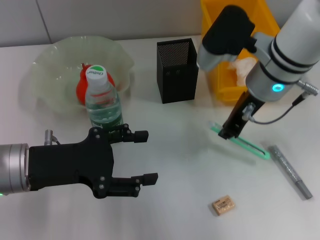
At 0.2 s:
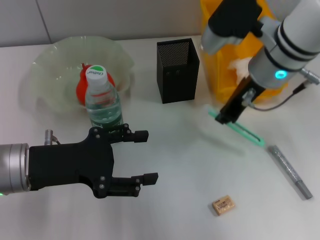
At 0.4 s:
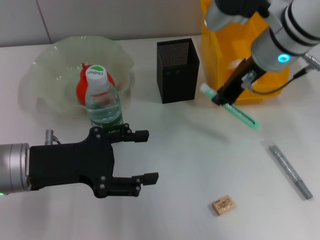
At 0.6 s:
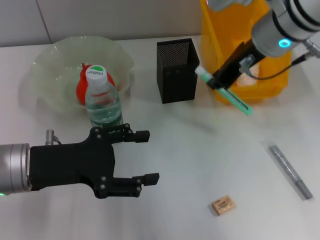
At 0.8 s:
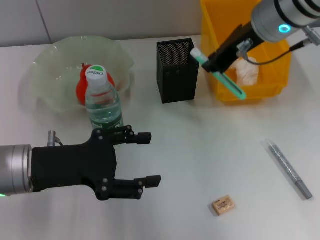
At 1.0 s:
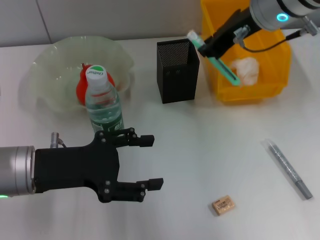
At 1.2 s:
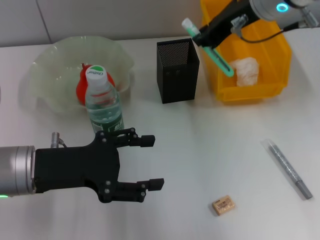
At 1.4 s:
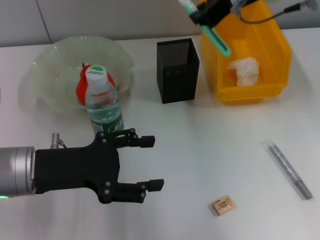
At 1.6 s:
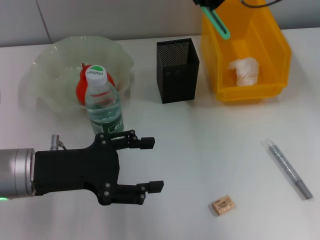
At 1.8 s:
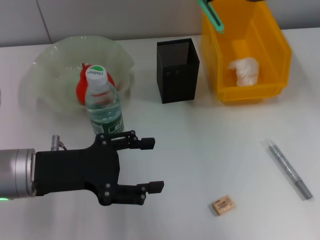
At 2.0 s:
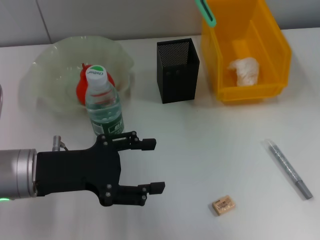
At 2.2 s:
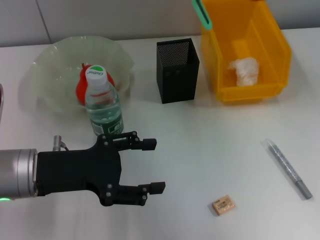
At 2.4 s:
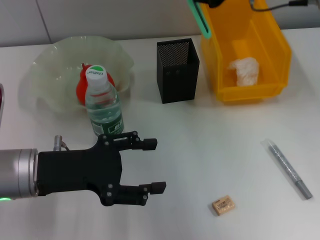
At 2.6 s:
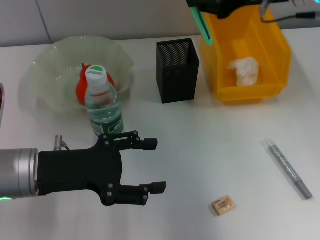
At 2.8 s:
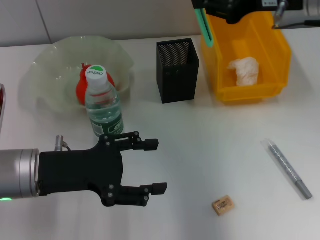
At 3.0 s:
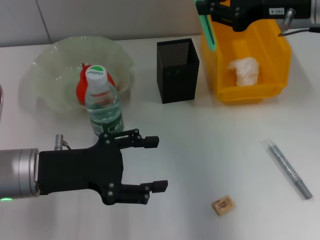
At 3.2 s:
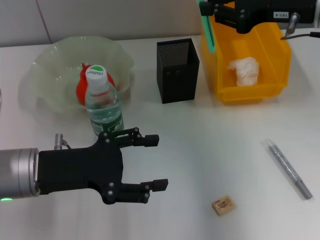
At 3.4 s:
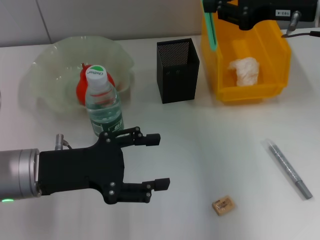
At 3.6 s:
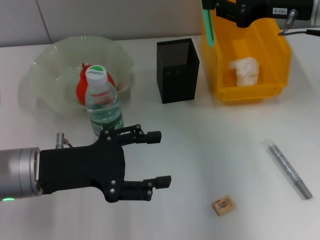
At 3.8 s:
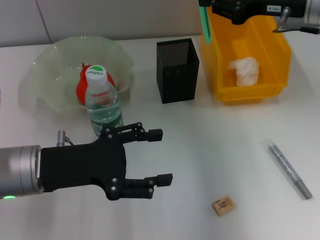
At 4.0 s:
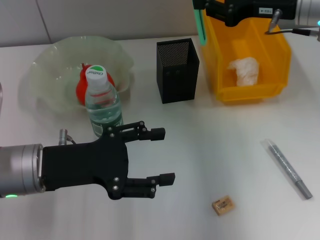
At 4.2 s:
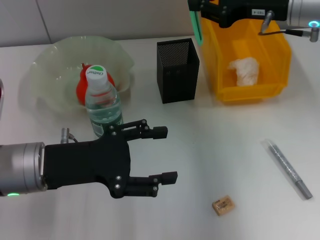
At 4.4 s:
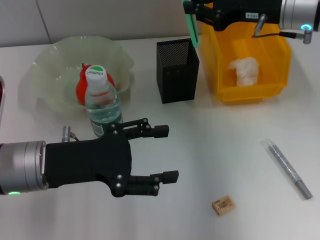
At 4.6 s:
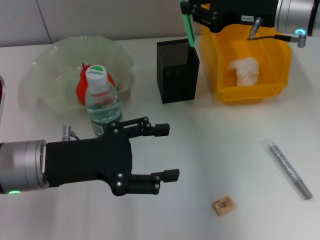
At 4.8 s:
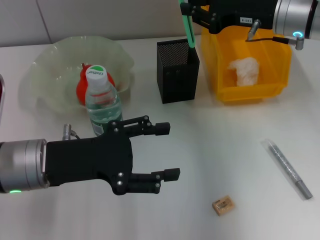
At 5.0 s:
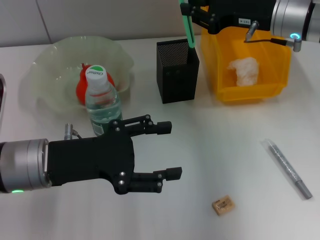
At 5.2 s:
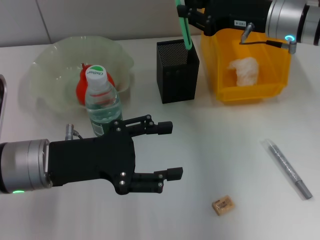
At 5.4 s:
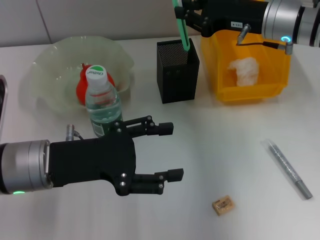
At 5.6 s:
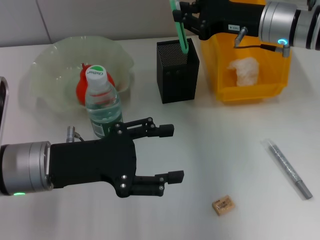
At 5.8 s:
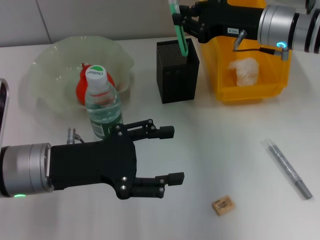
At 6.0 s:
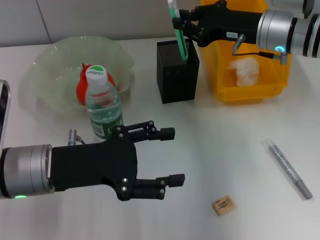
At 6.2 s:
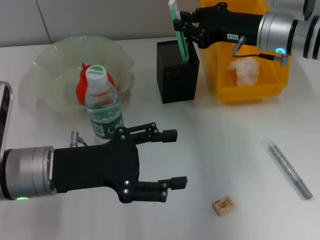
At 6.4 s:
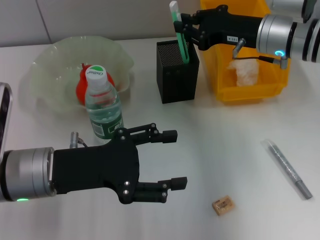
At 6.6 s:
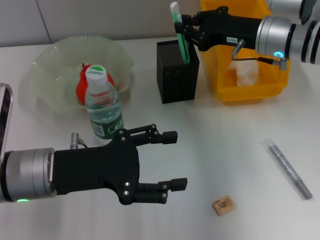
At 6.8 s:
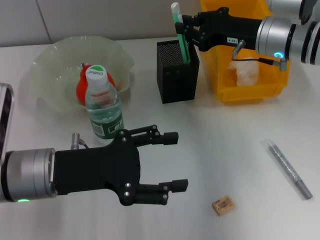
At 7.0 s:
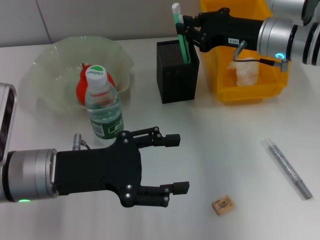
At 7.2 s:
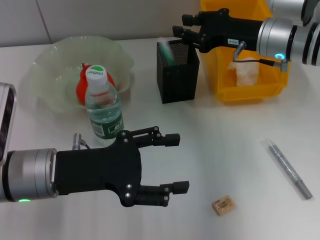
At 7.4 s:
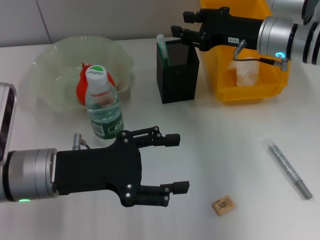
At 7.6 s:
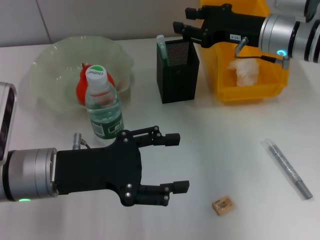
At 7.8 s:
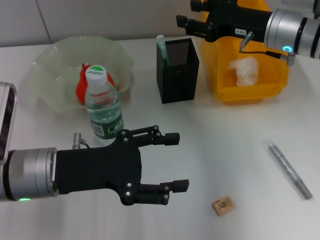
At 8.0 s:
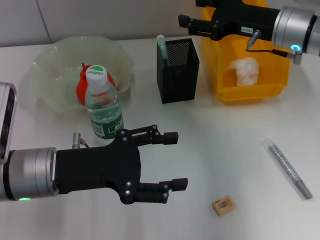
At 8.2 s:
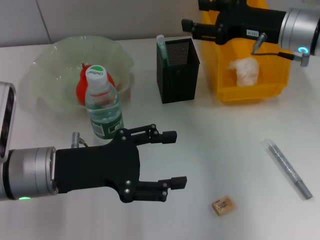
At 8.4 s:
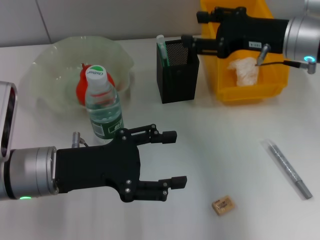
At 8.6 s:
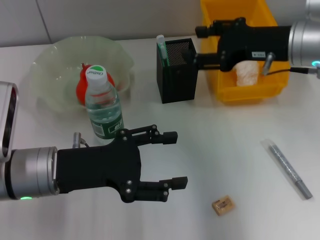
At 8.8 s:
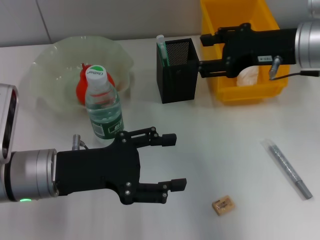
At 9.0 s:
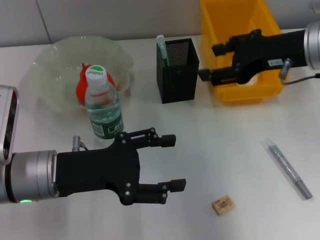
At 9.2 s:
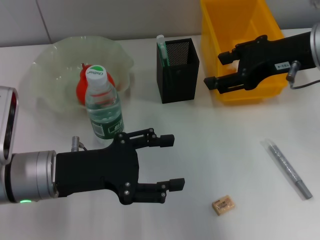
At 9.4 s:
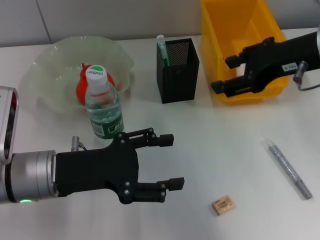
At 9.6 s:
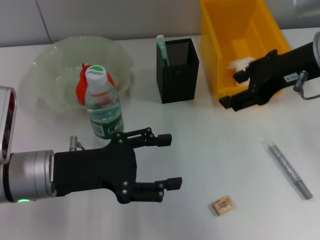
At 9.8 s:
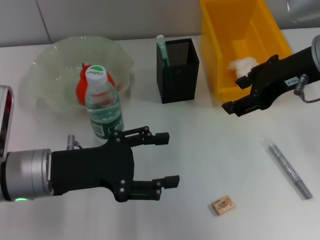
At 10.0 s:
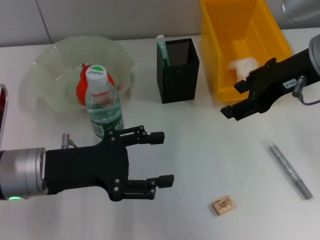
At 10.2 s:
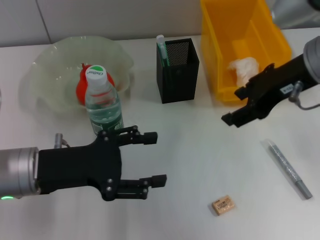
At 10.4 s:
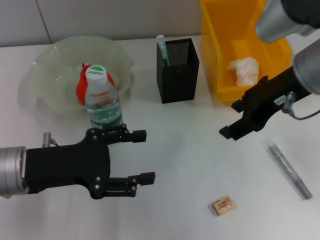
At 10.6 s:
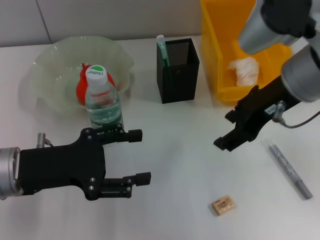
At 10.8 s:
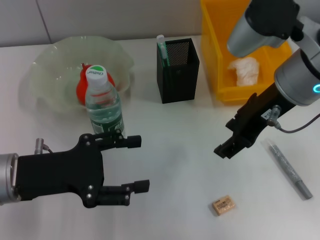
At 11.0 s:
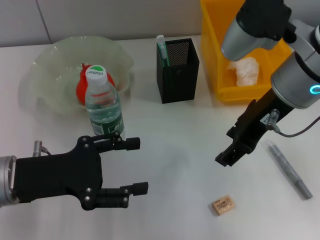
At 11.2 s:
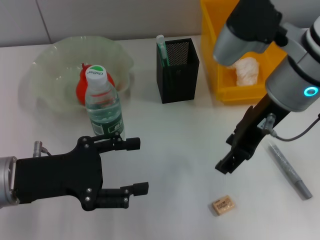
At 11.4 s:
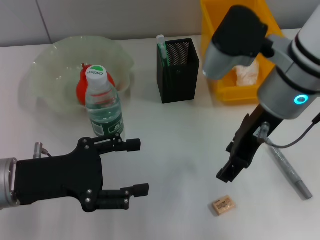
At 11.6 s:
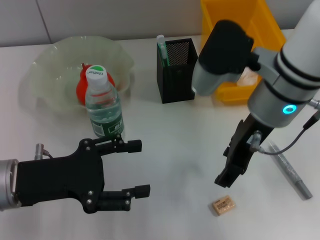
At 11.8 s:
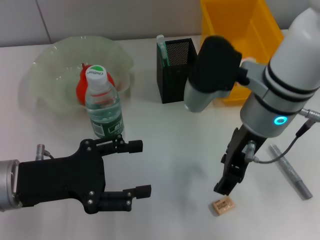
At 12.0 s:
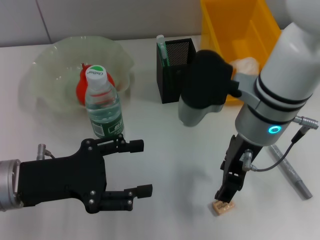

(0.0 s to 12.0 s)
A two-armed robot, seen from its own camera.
Step, 0.0 s - 7.2 s: Place the blue utility knife into the pen holder with the right hand.
0.0 s - 1.6 s: The right gripper moves upward, about 10 cm.
1.6 s - 3.0 s: The right gripper travels to the right and downward by roughly 10 cm.
3.0 s - 4.4 s: The right gripper moves roughly 5 cm.
4.4 s - 6.0 s: The grippers move only a little.
6.0 s - 7.6 s: The right gripper opens up.
7.6 s - 9.0 s: The right gripper shifts about 10 cm backward and upward.
10.4 s - 12.0 s: The right gripper heads to the left and downward, covering some 10 cm.

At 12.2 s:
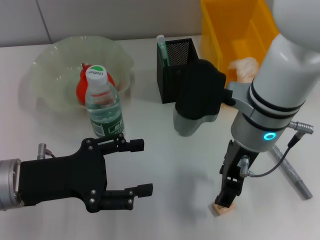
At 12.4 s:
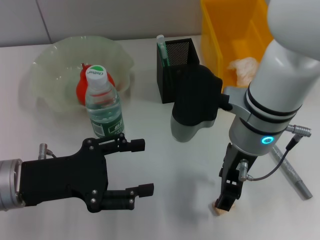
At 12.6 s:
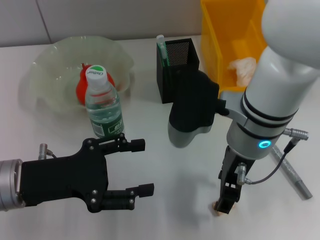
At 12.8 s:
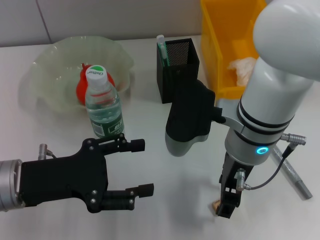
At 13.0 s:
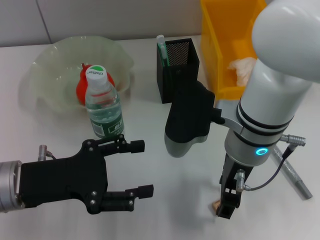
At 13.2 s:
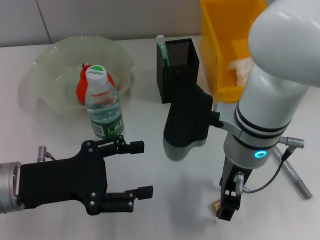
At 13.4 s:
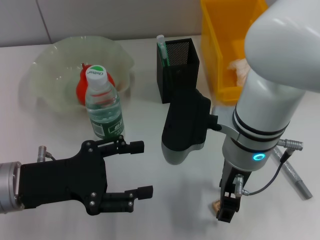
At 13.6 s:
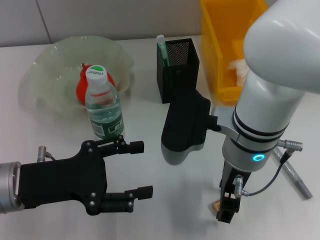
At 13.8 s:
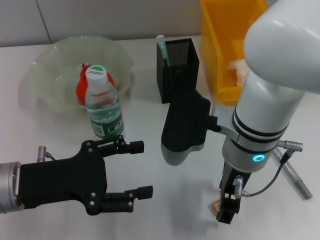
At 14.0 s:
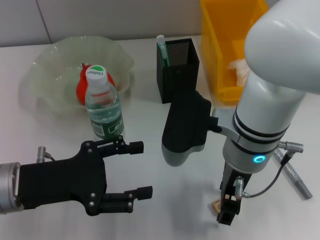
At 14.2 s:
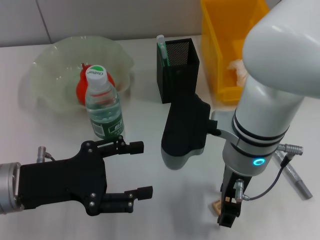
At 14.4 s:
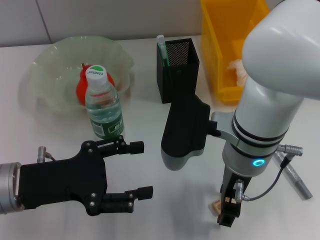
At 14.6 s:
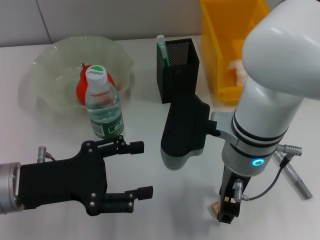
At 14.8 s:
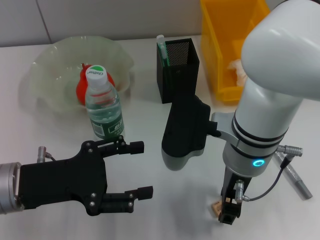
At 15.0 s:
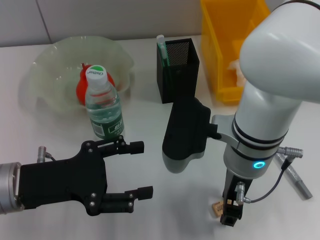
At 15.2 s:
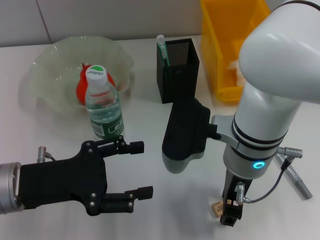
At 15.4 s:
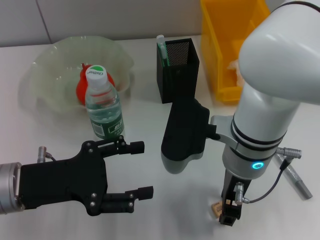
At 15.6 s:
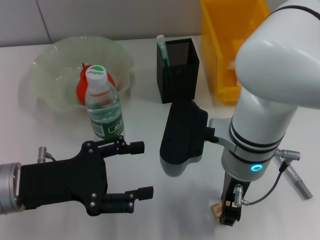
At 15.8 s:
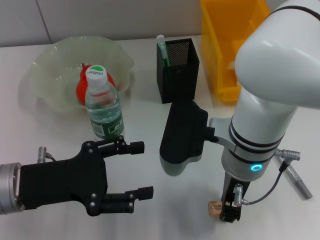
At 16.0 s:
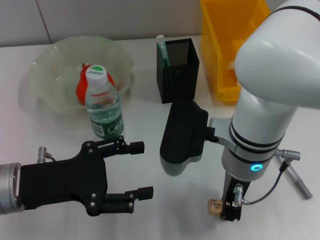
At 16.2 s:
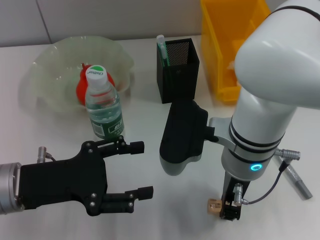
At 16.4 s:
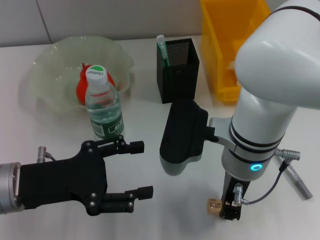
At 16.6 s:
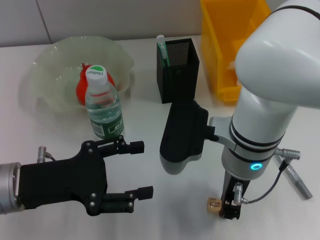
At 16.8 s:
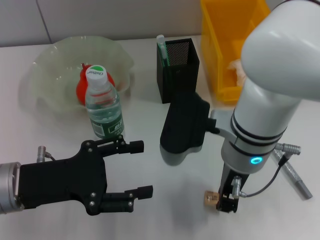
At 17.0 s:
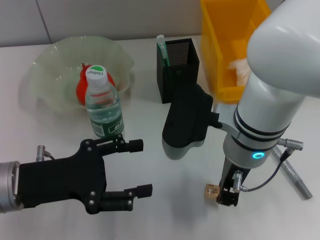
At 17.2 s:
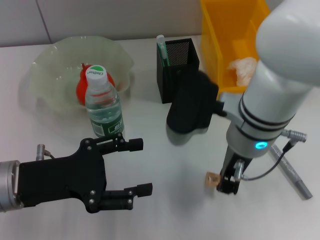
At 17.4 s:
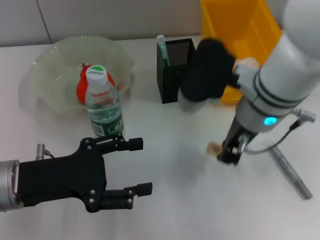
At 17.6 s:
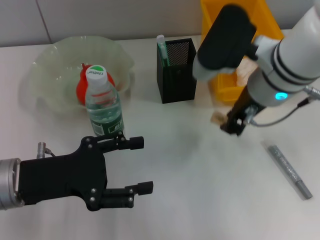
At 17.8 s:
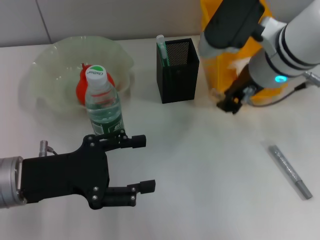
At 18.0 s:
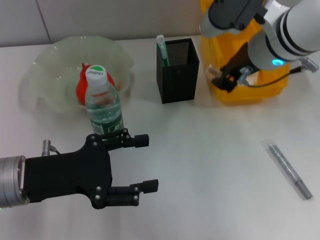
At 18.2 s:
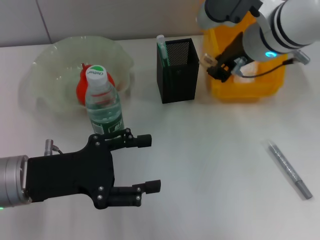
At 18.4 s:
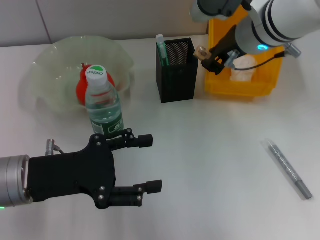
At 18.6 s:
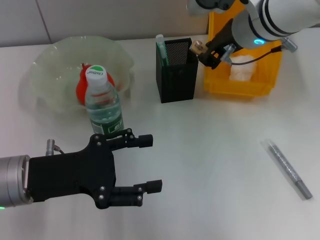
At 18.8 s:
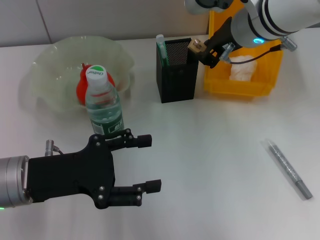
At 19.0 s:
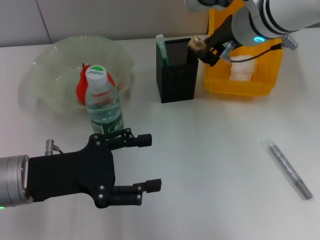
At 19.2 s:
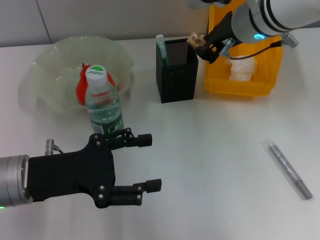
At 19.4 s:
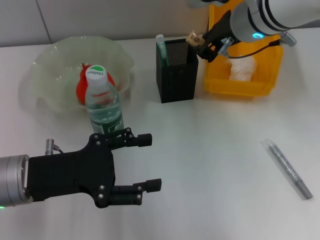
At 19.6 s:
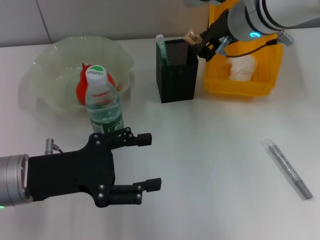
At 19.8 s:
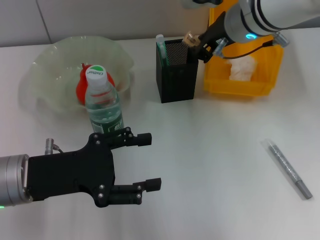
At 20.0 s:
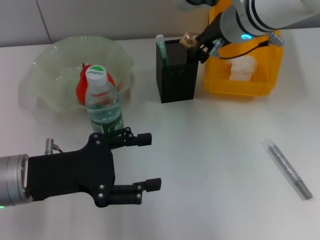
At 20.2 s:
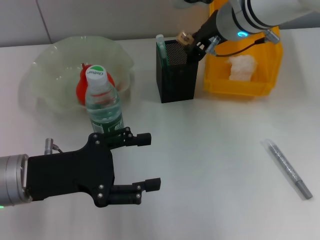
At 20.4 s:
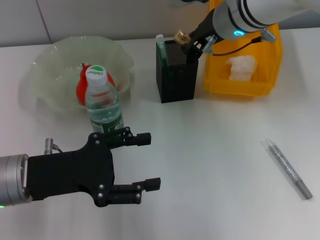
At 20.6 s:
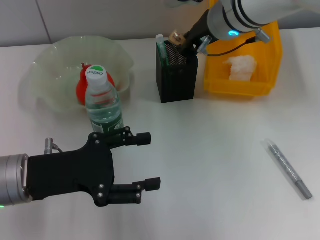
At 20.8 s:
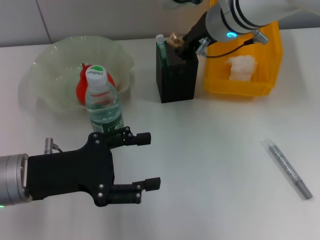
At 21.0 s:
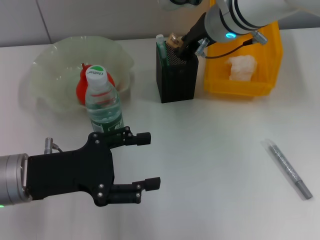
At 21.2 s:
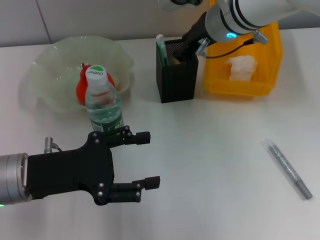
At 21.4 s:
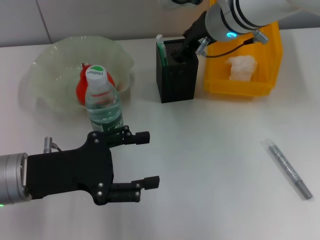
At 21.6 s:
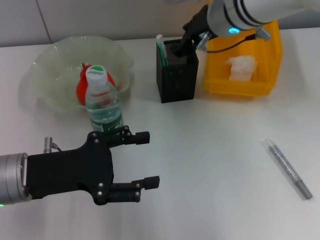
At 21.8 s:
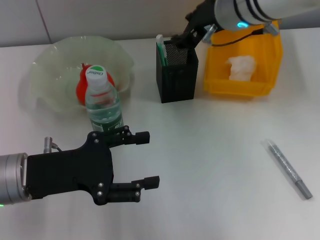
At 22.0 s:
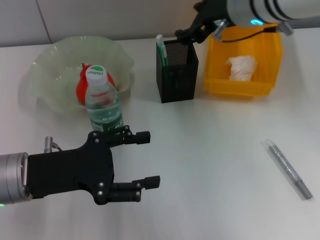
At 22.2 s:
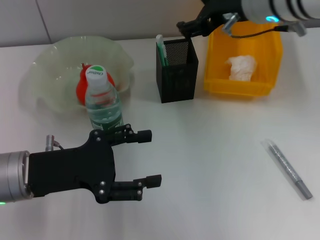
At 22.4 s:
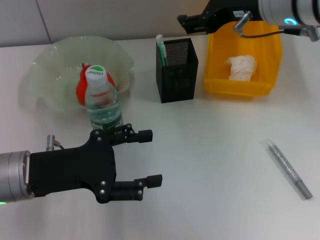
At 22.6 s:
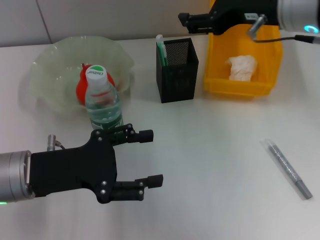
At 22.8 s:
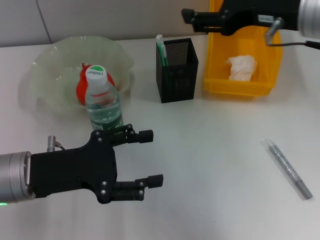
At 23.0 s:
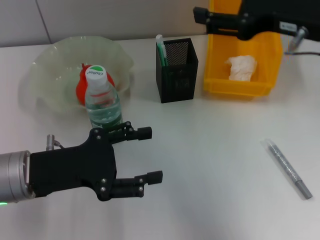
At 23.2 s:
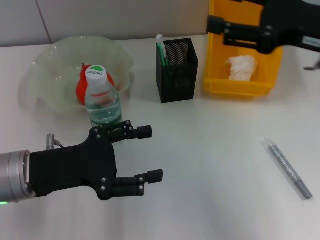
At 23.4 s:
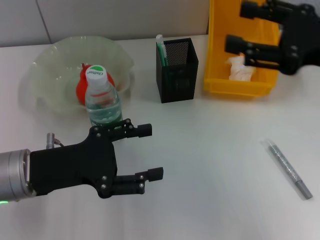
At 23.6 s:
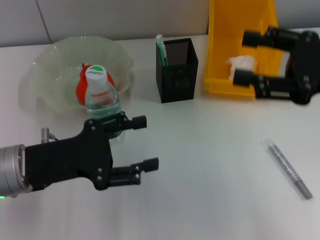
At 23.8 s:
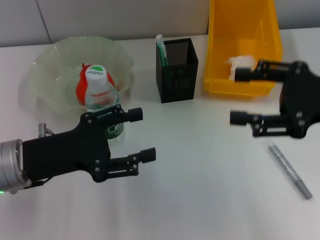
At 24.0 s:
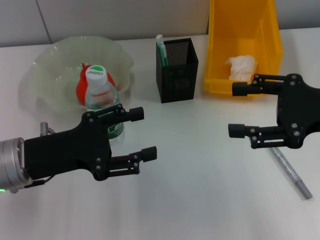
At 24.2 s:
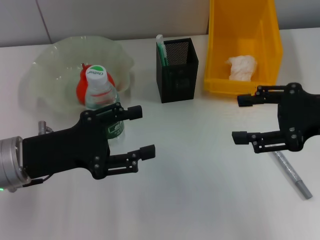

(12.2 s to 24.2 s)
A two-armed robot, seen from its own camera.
Step, 12.2 s - 16.0 s: Grab the eraser with the right hand.
Step, 16.2 s - 21.6 s: Put the eraser into the pen holder with the right hand.
13.8 s - 15.2 s: Neither gripper changes place.
15.2 s - 16.6 s: The right gripper closes.
16.6 s - 18.2 s: The right gripper moves forward, to the right and upward, some 15 cm.
18.2 s - 21.2 s: There are only small adjustments of the grippers.
21.2 s - 22.6 s: The right gripper travels backward, to the right and upward by roughly 10 cm, and opens its fingers.
22.6 s - 24.2 s: The right gripper shifts approximately 15 cm to the right, backward and downward.
